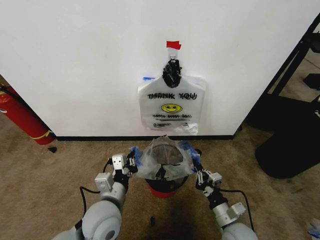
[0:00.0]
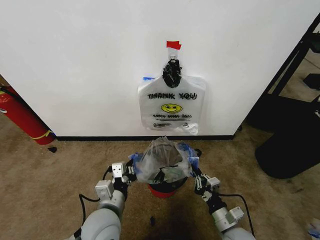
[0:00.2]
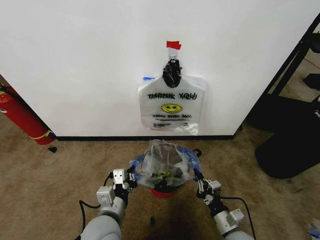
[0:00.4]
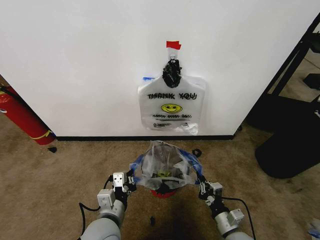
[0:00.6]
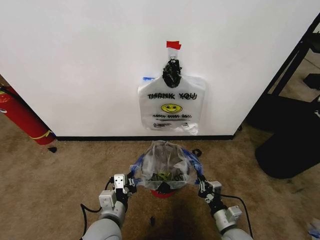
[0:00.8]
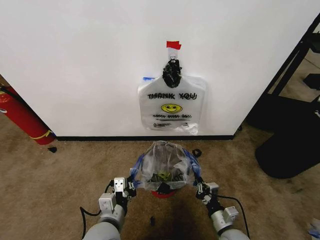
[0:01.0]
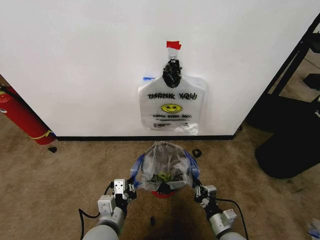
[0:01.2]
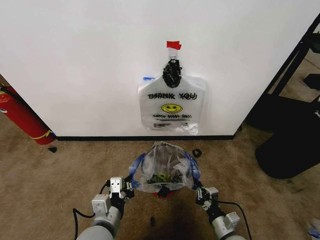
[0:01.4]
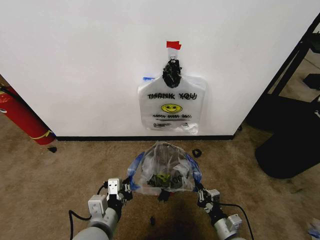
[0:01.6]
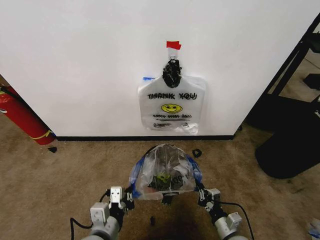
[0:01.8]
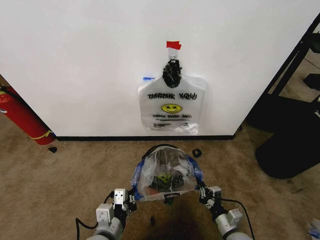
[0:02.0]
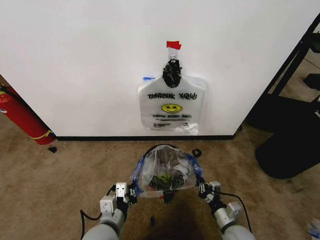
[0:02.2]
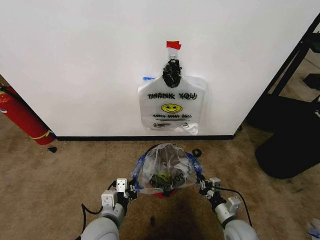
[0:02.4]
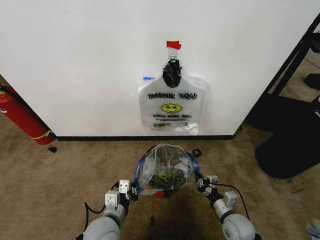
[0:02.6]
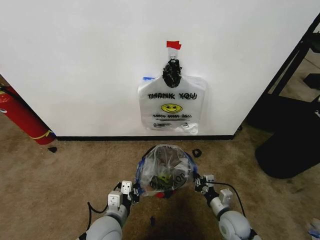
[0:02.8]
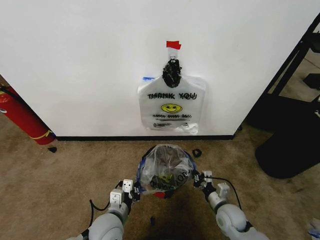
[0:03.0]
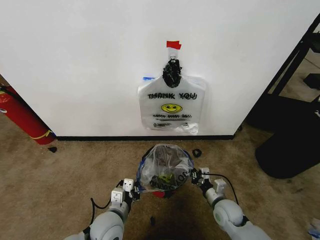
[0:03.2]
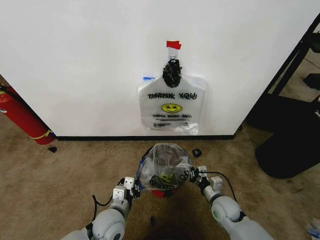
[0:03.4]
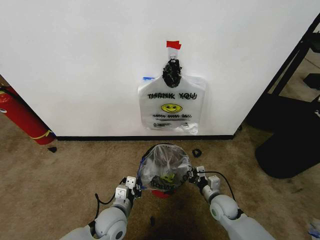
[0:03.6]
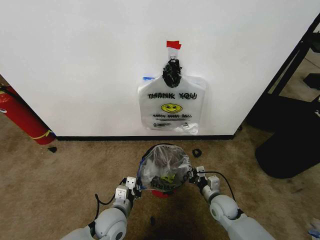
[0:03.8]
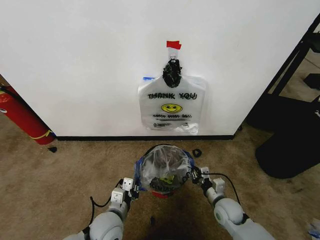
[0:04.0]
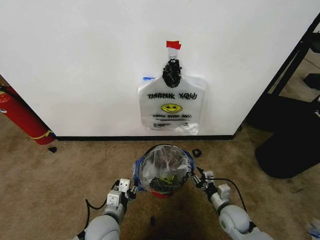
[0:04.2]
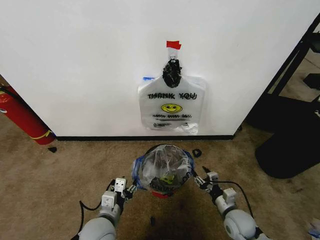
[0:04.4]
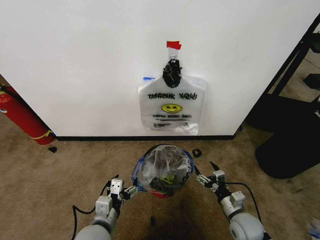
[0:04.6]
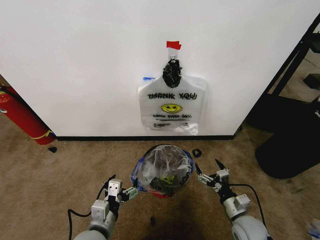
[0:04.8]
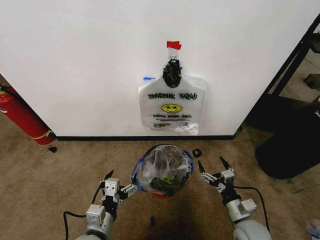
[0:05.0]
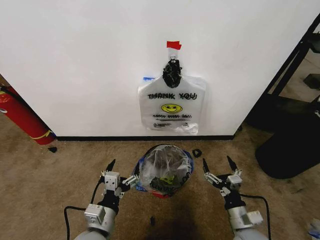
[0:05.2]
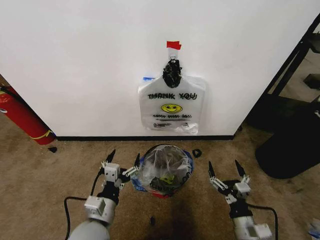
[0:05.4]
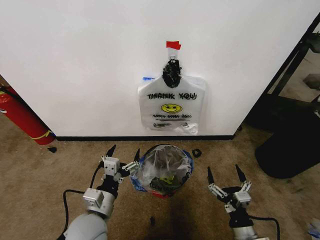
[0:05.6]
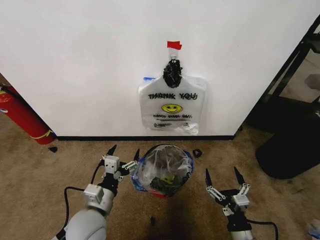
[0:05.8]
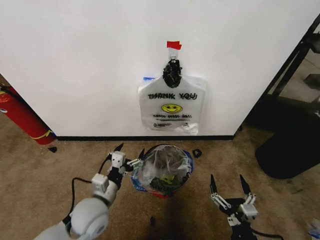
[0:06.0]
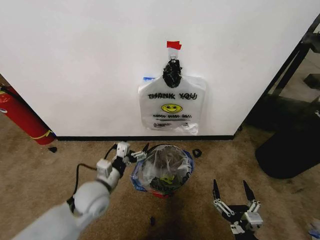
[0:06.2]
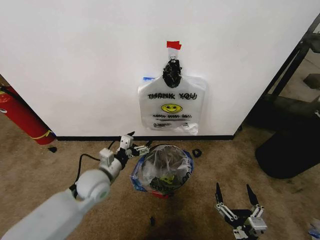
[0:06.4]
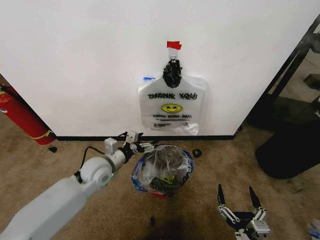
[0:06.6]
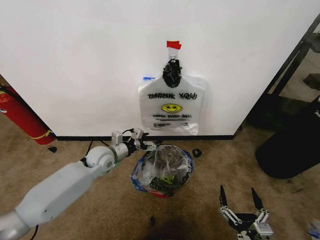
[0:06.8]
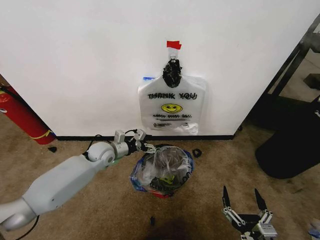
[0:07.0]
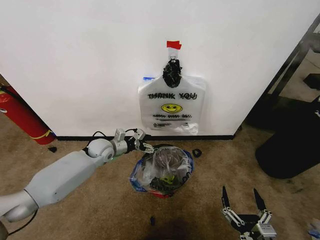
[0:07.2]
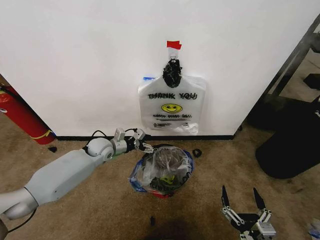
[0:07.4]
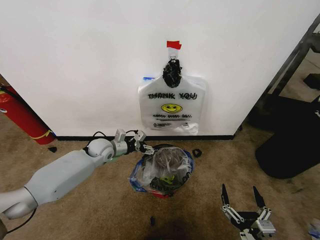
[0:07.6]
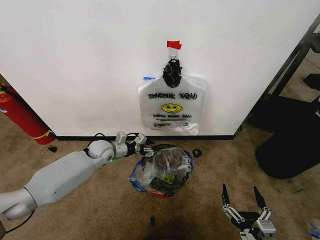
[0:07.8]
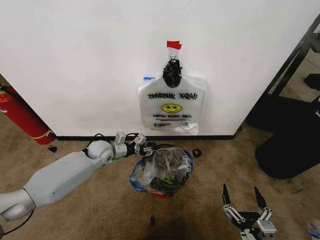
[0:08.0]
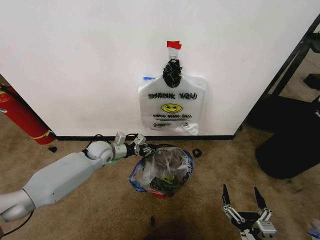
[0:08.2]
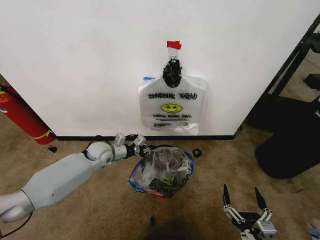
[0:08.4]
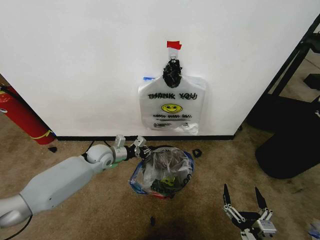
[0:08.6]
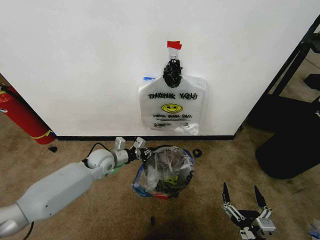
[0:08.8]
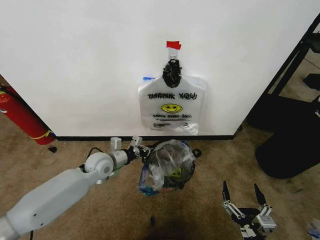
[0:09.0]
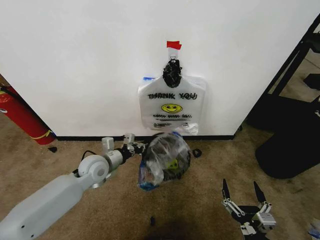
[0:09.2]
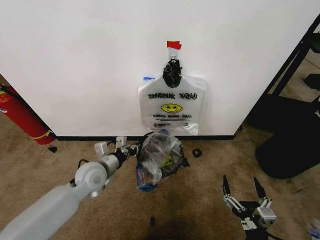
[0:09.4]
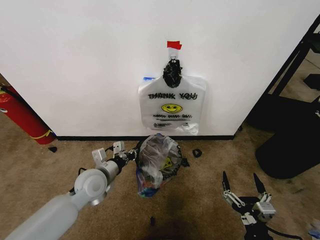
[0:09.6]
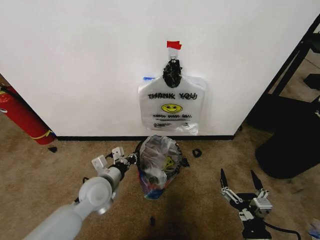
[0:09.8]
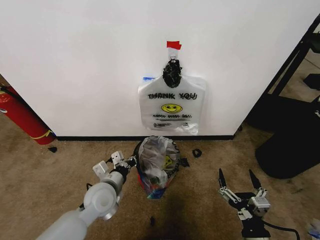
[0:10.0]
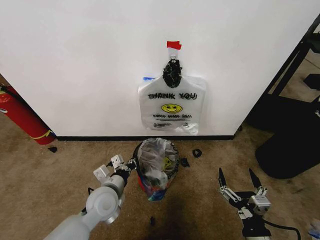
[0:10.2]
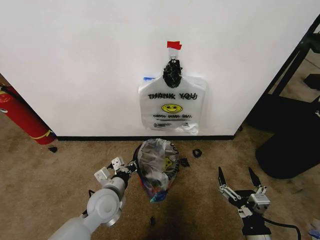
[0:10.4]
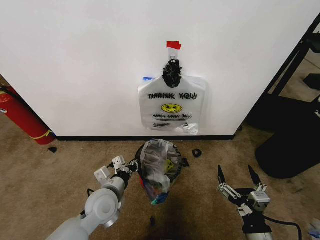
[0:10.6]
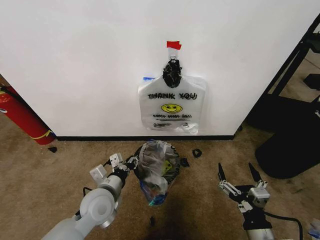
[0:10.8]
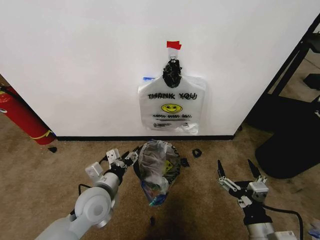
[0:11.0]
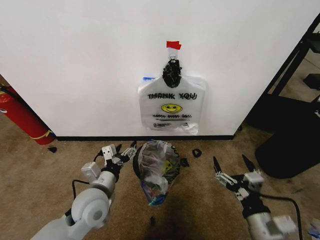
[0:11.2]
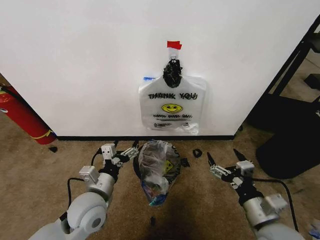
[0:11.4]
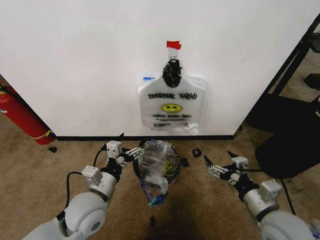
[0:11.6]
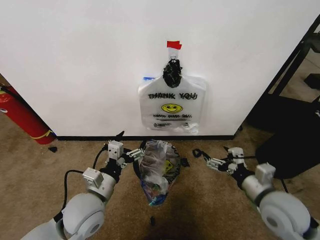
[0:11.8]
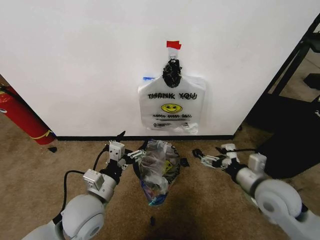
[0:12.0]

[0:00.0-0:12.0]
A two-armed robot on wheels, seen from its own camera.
Task of the whole recording: Pick up the garbage bag from the wall and place it over the trash bin.
0:00.0 to 0:01.6: The left gripper moves backward, approximately 5 cm. The right gripper goes approximately 5 cm downward.
0:01.6 to 0:03.0: The right gripper heads forward, covering about 10 cm, while the left gripper heads downward and forward, covering some 10 cm.
0:03.0 to 0:04.4: The right gripper opens. Meanwhile the left gripper opens.
0:04.4 to 0:06.0: The left gripper shifts by some 5 cm, and opens, while the right gripper moves backward and upward, some 15 cm, and opens up.
0:06.0 to 0:07.6: The left gripper goes roughly 25 cm forward.
0:07.6 to 0:09.0: The left gripper moves backward, approximately 5 cm, and closes its fingers.
0:09.0 to 0:10.4: The left gripper heads backward, covering about 15 cm. Meanwhile the right gripper changes place by roughly 5 cm.
0:10.4 to 0:12.0: The right gripper travels forward and upward by about 20 cm. Meanwhile the left gripper heads upward, covering some 5 cm, and opens.

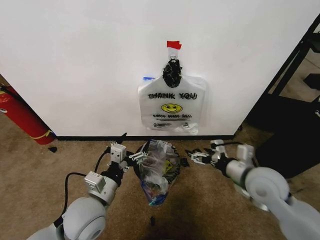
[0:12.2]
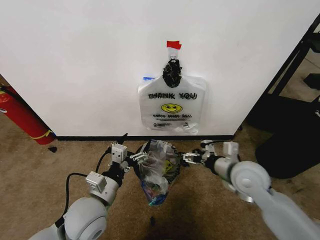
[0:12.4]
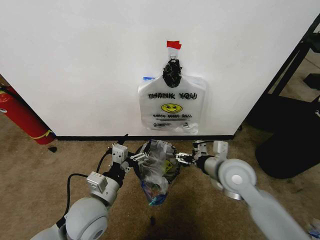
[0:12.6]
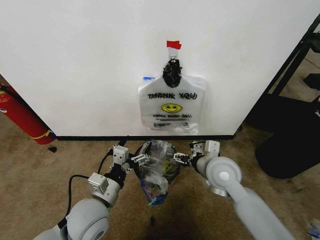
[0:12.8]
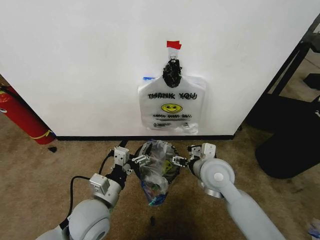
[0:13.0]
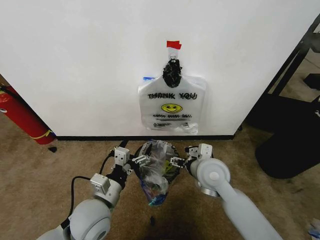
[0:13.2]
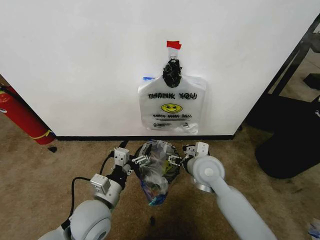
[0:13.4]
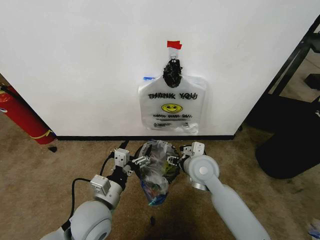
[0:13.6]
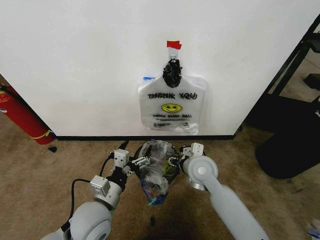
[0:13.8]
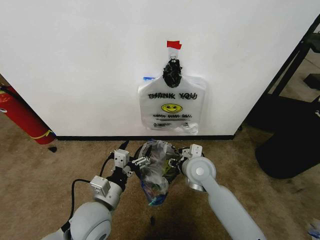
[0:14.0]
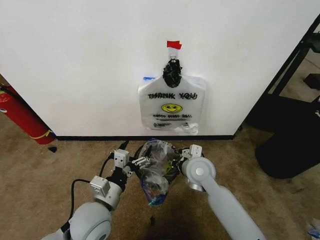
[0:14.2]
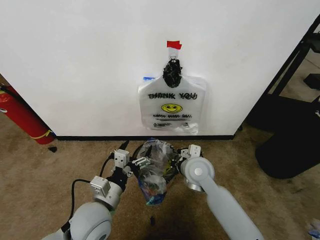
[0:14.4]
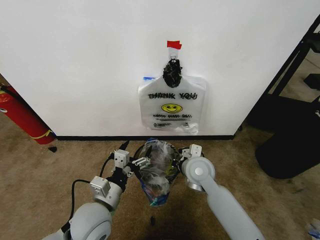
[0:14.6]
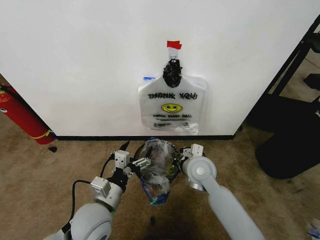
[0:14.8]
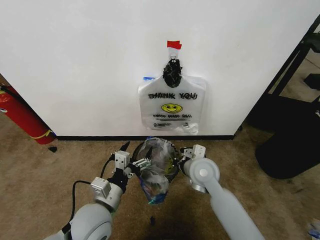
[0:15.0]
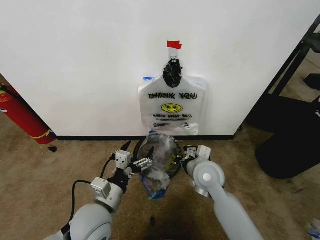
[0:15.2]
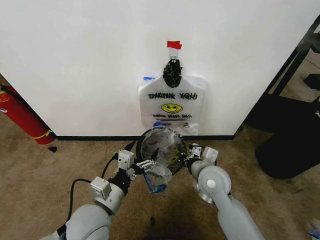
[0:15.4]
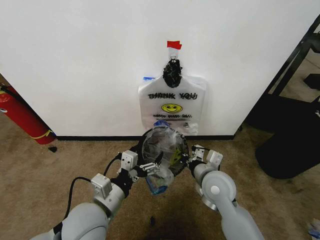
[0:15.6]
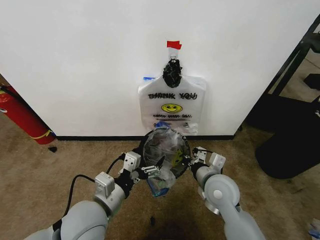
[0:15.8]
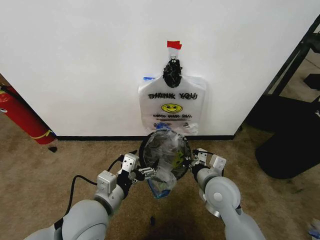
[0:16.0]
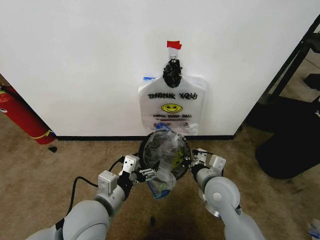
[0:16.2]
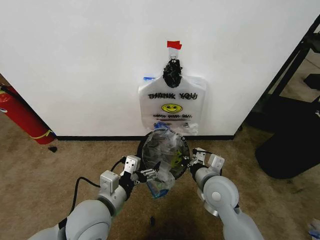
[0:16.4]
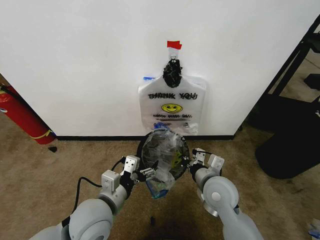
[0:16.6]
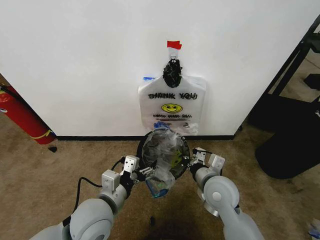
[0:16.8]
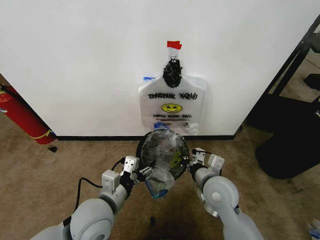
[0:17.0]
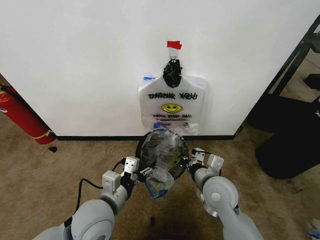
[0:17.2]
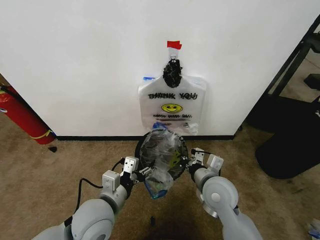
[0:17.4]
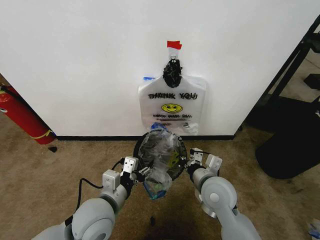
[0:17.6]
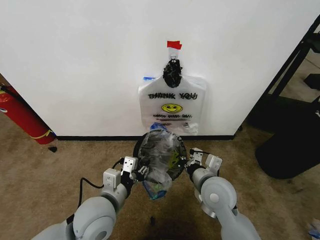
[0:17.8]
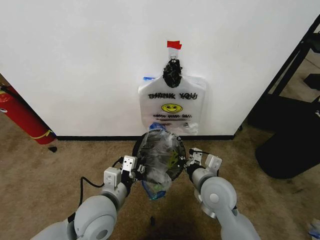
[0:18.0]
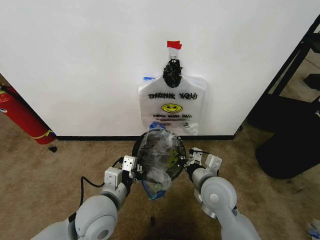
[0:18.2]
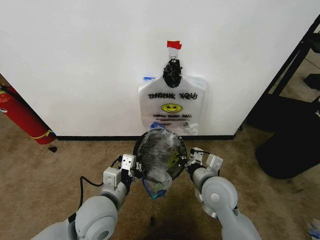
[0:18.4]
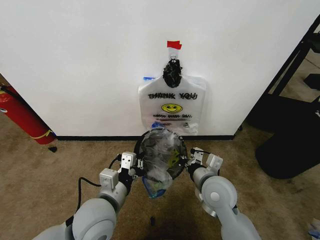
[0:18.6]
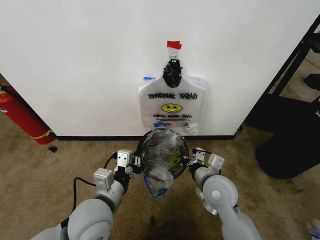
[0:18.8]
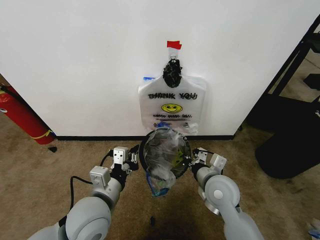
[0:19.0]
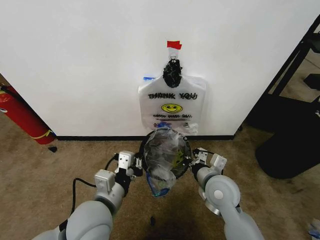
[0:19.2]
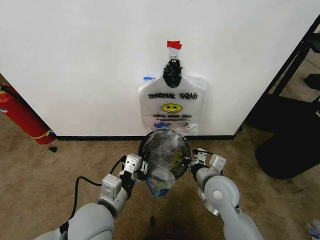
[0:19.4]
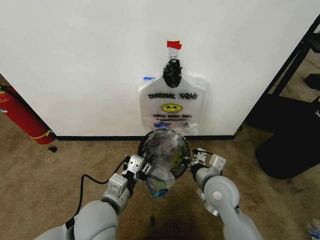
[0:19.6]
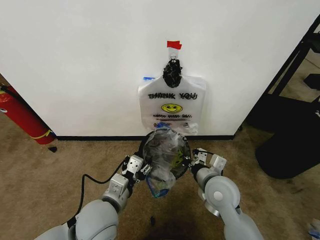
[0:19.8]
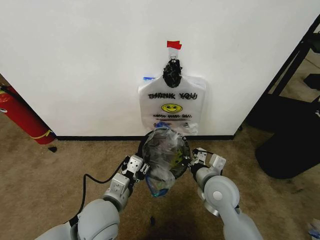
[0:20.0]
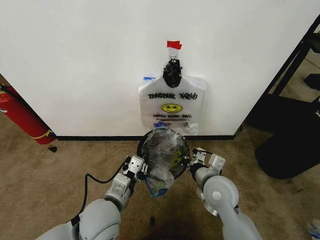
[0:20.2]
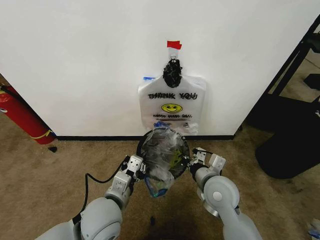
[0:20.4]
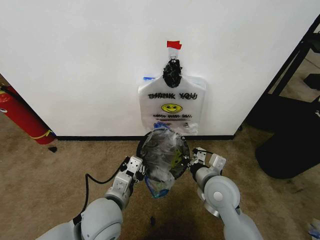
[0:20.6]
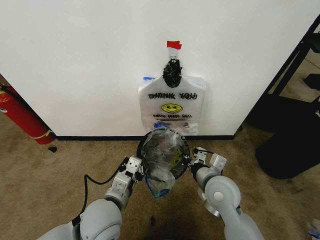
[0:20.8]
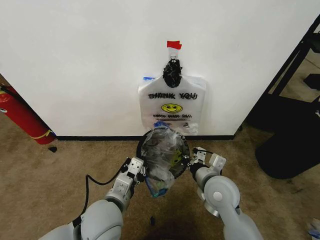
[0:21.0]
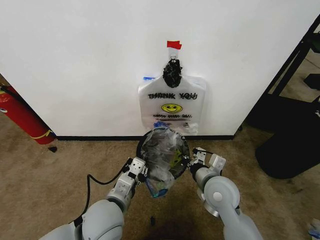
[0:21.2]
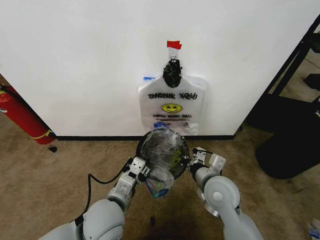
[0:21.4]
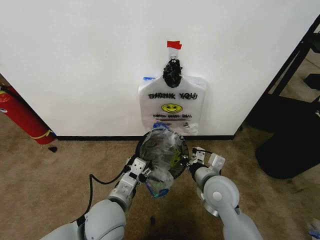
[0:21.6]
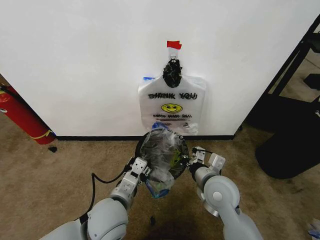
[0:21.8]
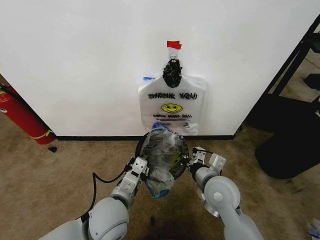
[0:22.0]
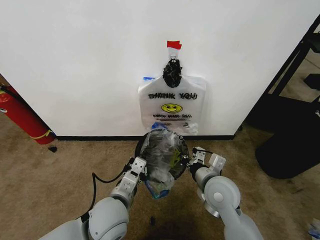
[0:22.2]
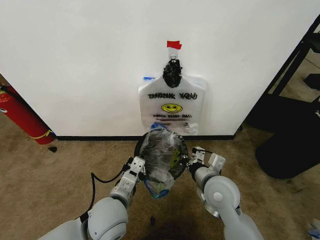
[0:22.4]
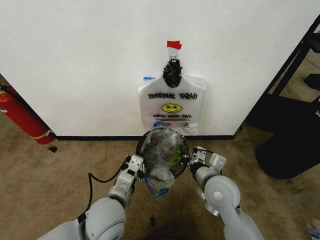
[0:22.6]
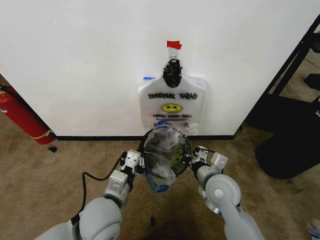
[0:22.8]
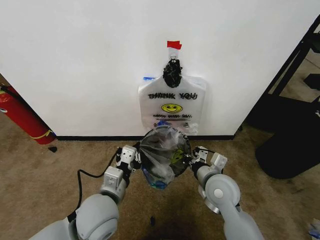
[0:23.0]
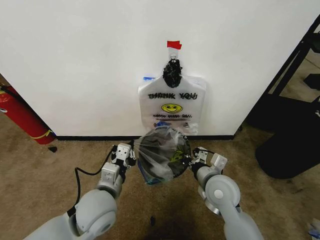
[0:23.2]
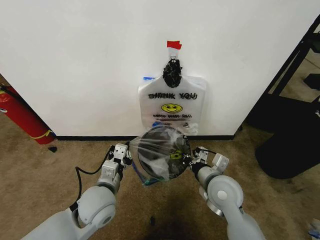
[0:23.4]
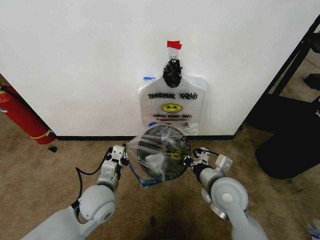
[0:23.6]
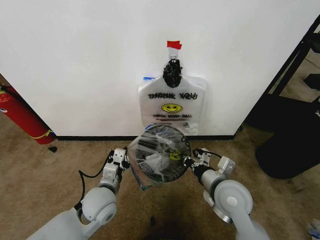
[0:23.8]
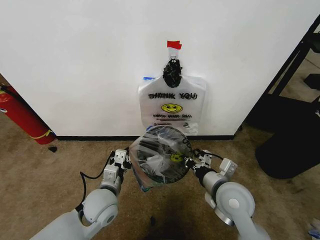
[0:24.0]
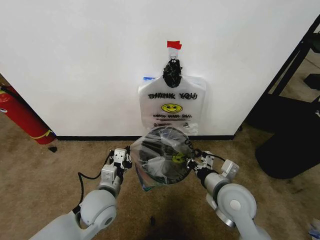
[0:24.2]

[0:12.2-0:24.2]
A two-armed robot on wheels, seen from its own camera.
Task of the whole recording: Pick up the garbage bag from the wall and place it over the trash bin.
0:12.2 to 0:13.8: The right gripper heads to the left and forward, covering approximately 15 cm, and closes.
0:13.8 to 0:15.2: The right gripper closes its fingers.
0:15.2 to 0:16.6: The right gripper shifts some 5 cm backward.
0:16.6 to 0:18.2: The left gripper closes its fingers.
0:18.2 to 0:19.8: The left gripper opens.
0:19.8 to 0:21.2: The grippers stay close to where they were, moving slightly.
0:21.2 to 0:22.6: The left gripper opens and closes again.
0:22.6 to 0:24.2: The left gripper moves about 5 cm.
